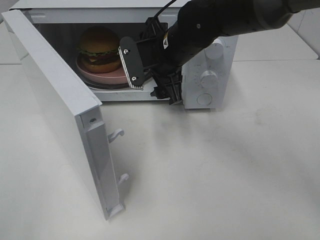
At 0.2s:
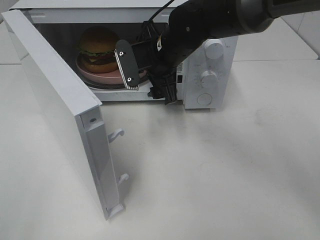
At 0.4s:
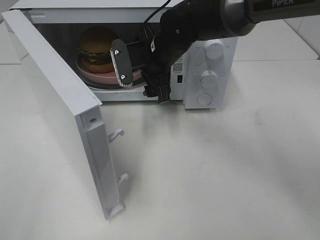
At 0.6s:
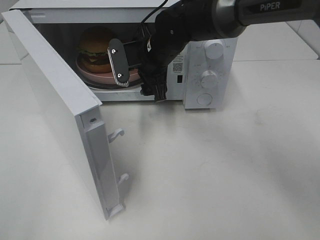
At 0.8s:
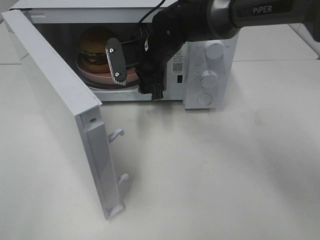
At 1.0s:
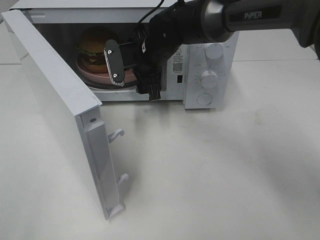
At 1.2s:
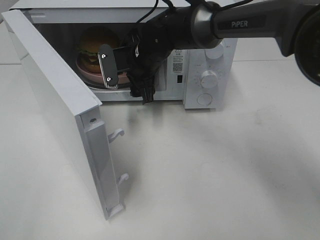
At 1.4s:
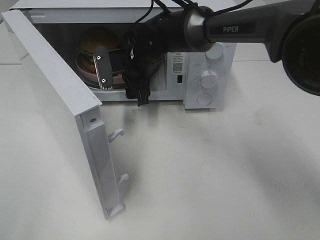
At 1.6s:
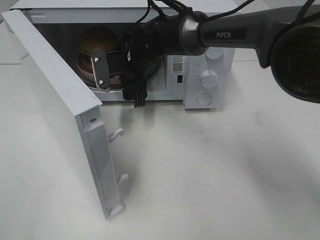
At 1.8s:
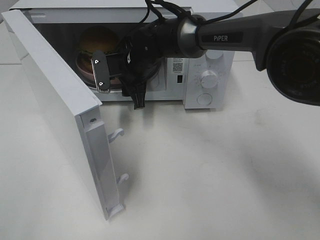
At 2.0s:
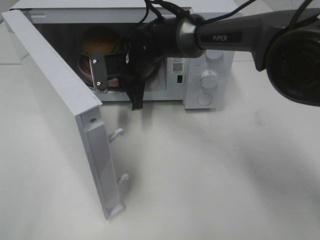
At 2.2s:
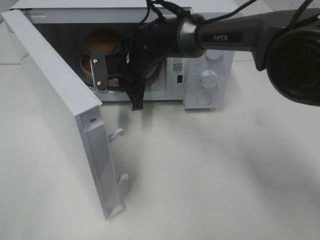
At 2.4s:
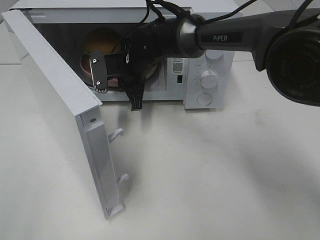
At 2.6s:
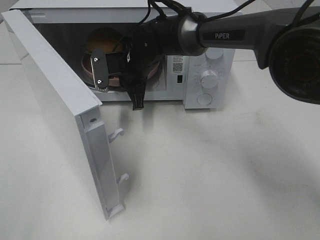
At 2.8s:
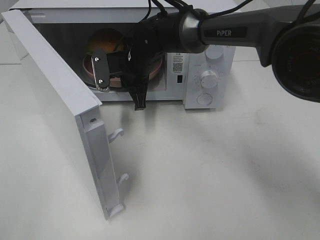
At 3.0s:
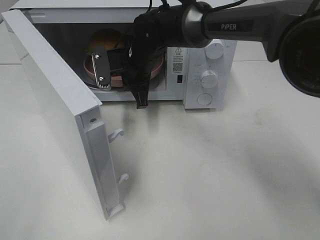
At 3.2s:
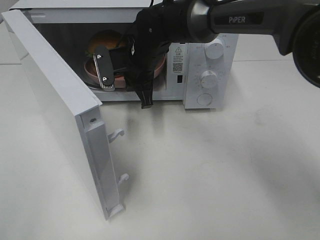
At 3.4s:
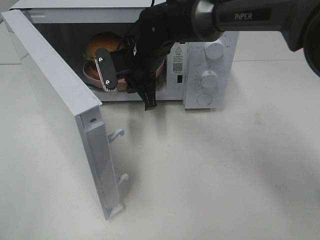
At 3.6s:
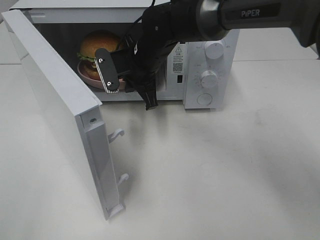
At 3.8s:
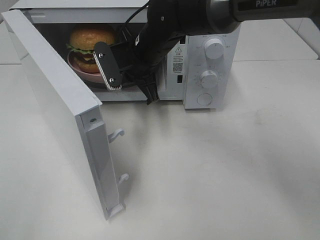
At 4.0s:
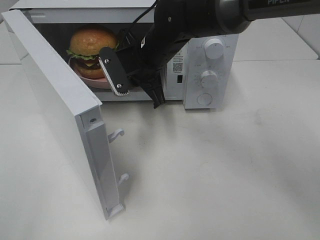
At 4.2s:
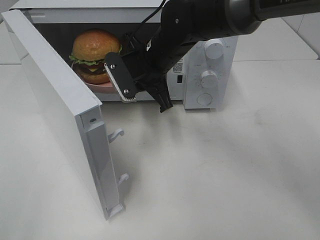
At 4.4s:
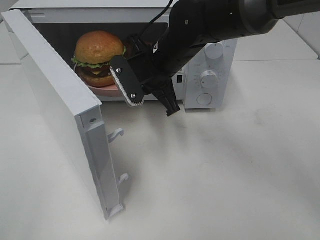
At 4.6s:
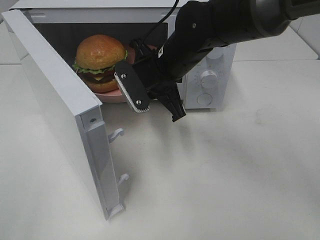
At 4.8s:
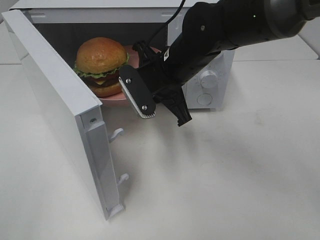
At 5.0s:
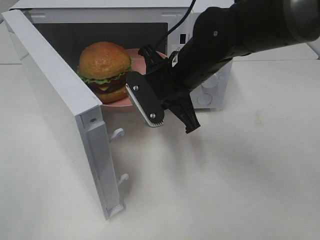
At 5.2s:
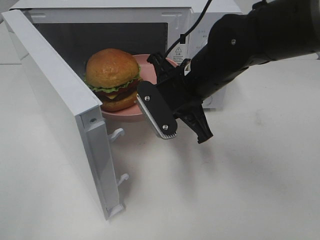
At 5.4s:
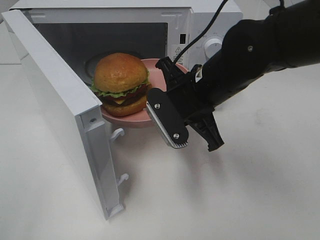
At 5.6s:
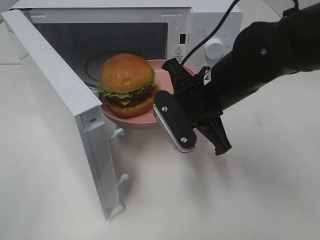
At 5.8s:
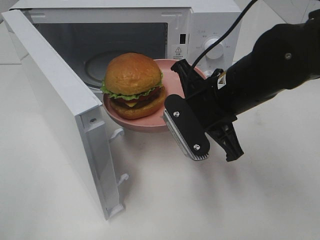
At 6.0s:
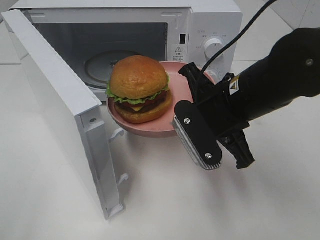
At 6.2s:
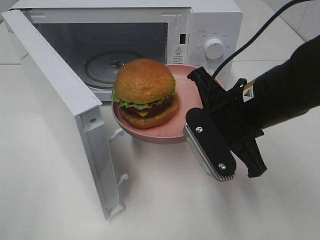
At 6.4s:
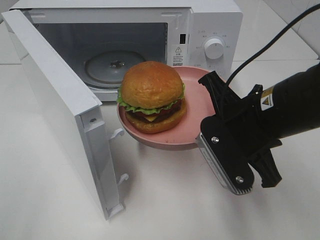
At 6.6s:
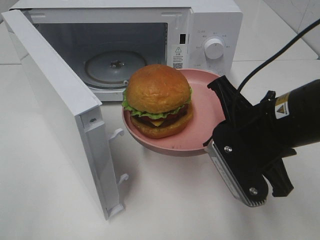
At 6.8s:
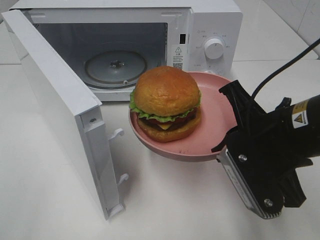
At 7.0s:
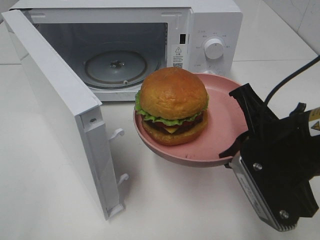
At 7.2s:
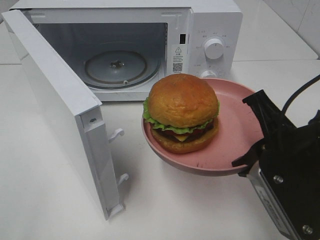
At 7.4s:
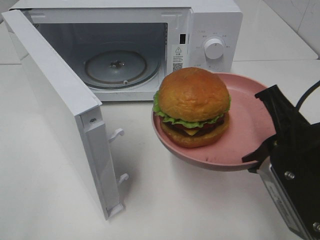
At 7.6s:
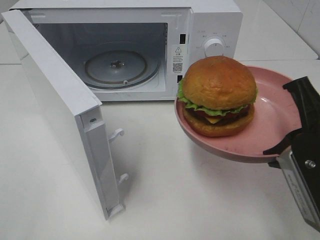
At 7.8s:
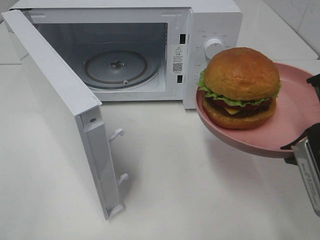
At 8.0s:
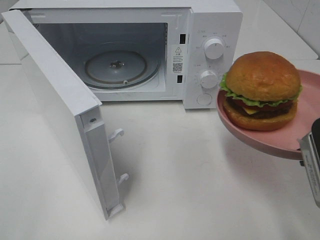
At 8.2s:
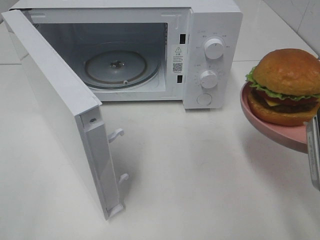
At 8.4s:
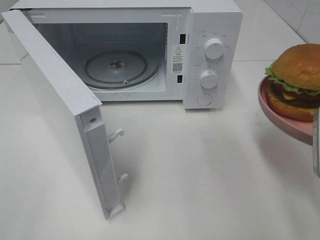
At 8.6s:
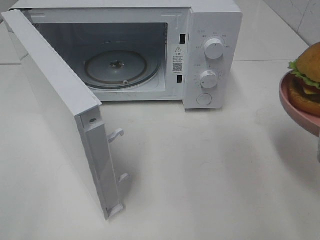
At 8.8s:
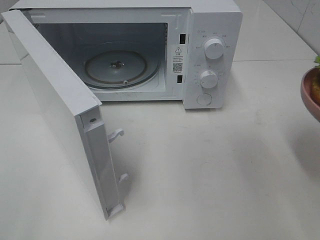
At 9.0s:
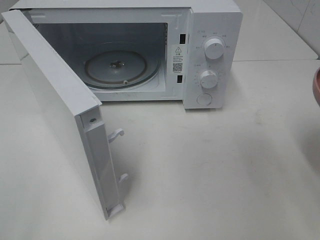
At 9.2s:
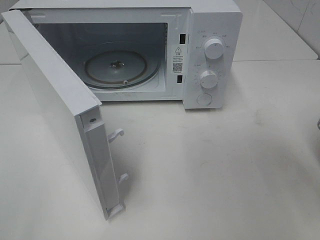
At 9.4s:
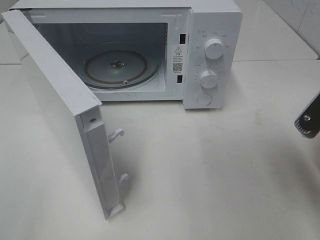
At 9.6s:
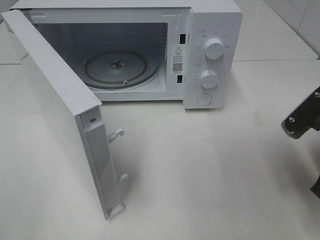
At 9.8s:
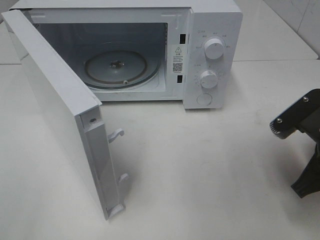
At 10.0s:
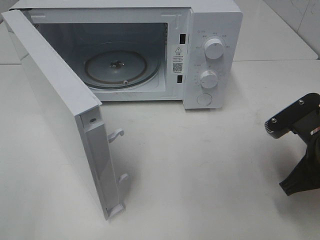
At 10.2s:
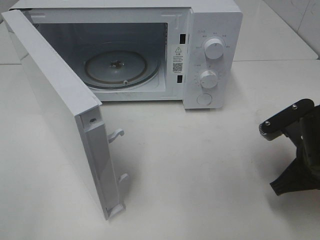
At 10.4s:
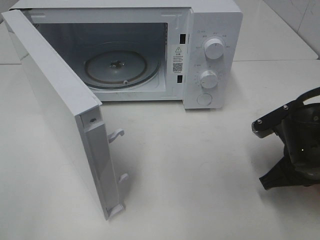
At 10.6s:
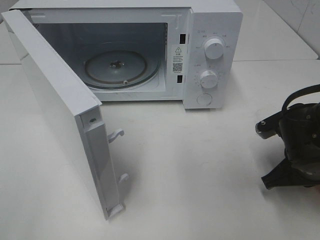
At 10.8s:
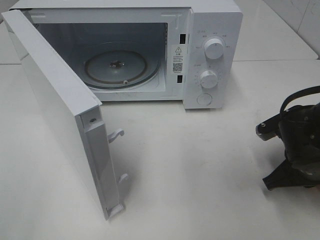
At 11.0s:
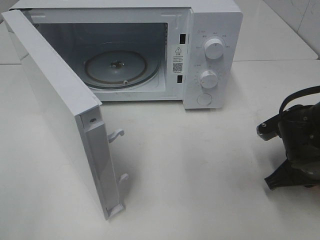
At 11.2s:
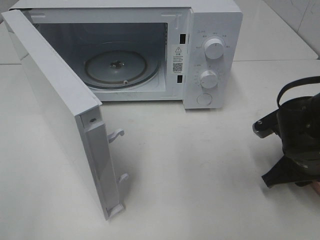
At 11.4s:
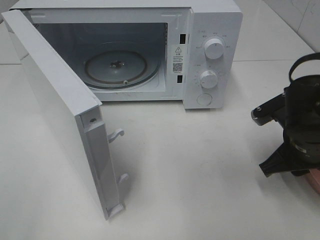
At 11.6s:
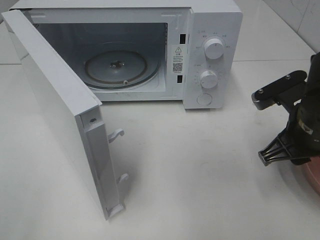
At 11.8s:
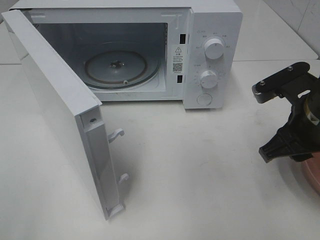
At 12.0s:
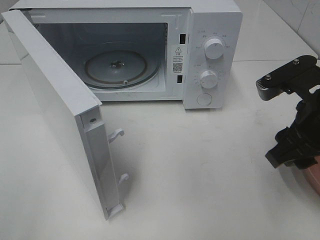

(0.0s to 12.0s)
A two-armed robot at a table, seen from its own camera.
Task of the whole recording: Heat the burger.
Step, 0.0s - 2.2s: Right hand: grab the plate with the hamburger.
Step, 2.4s - 11.6s: Right hand: place the plate on the table.
0.0s - 1.6s: The right gripper heads to the left, forward and downward, covering about 10 cm.
1.6s - 3.0s: The right gripper closes.
3.0s - 4.4s: The right gripper shifts approximately 5 cm backward.
4.4s - 6.0s: The right gripper is displaced backward and to the right by approximately 15 cm.
6.0s - 7.6s: The right gripper moves backward and to the right, roughly 15 cm.
7.6s - 9.0s: The right gripper travels to the right by about 5 cm.
9.0s - 10.4s: The right gripper heads downward and forward, covering roughly 15 cm.
10.4s - 12.0s: The right gripper shifts roughly 10 cm upward, and opens its fingers.

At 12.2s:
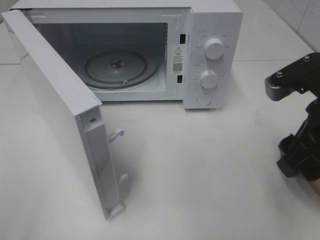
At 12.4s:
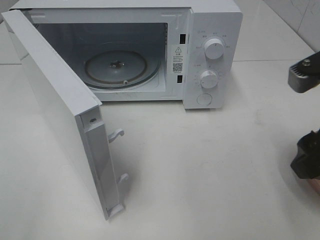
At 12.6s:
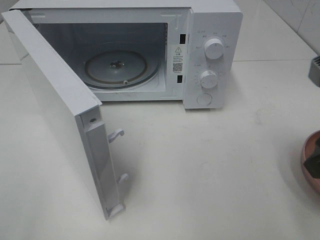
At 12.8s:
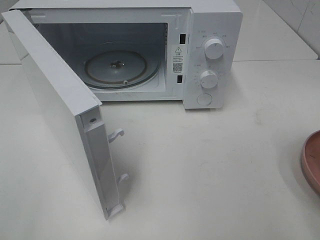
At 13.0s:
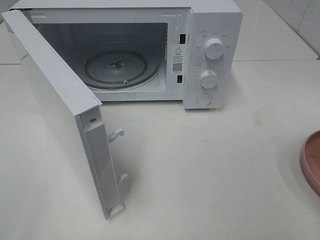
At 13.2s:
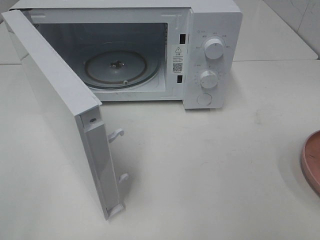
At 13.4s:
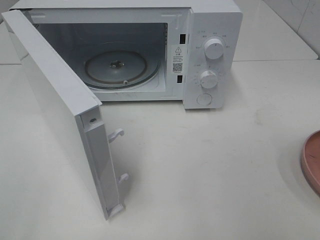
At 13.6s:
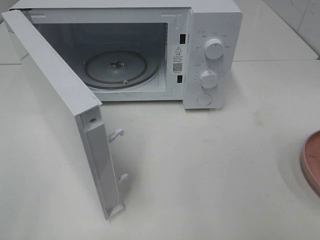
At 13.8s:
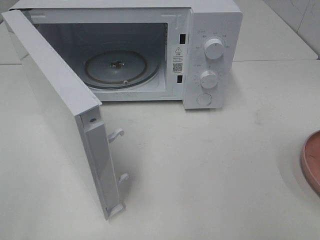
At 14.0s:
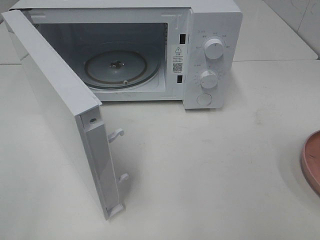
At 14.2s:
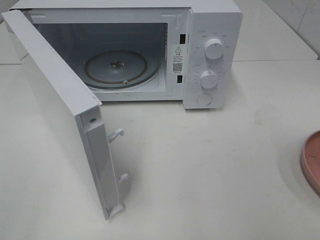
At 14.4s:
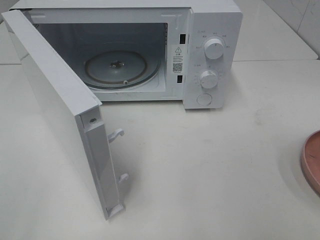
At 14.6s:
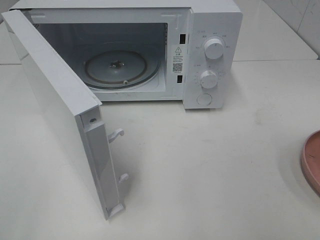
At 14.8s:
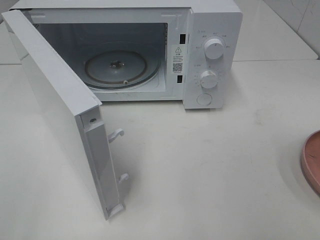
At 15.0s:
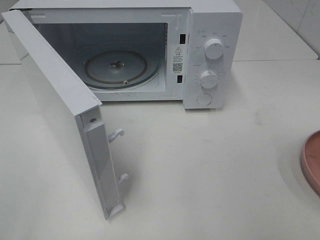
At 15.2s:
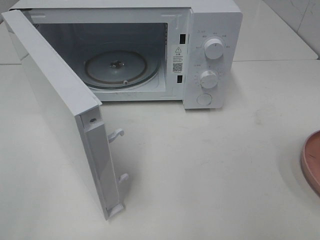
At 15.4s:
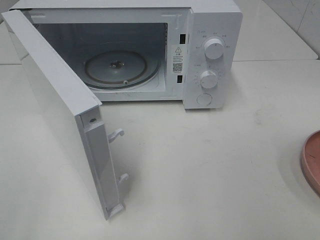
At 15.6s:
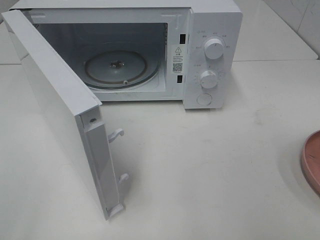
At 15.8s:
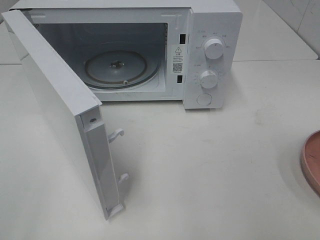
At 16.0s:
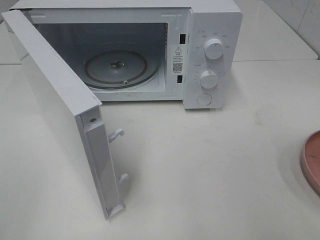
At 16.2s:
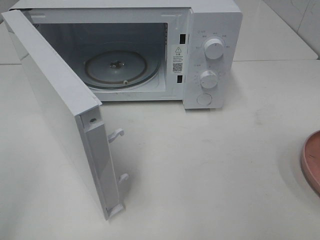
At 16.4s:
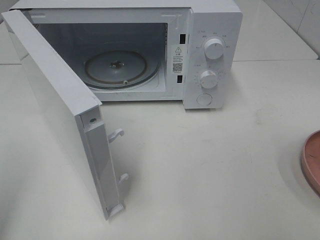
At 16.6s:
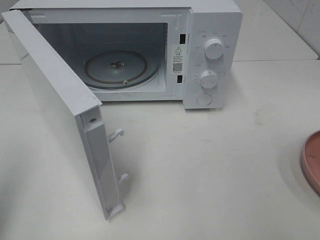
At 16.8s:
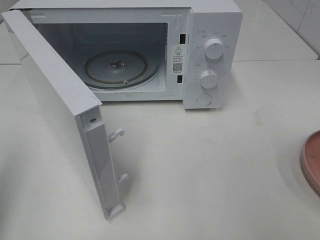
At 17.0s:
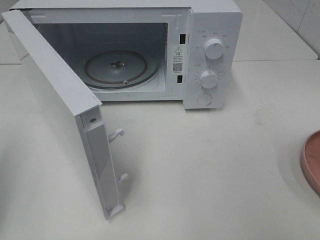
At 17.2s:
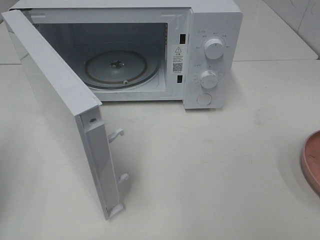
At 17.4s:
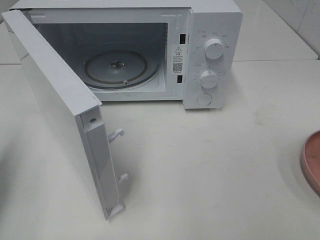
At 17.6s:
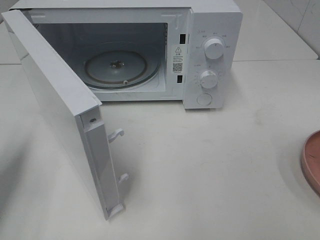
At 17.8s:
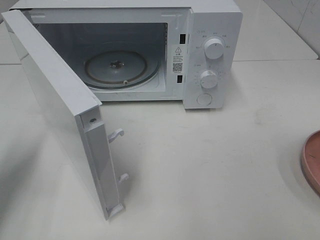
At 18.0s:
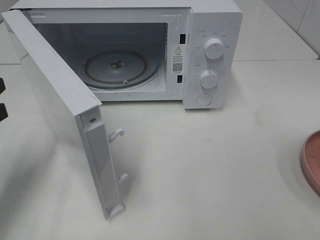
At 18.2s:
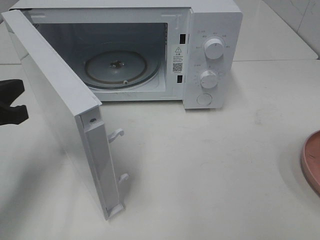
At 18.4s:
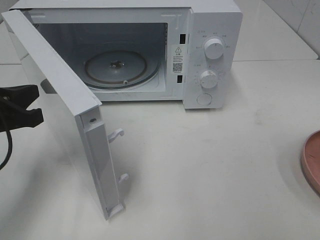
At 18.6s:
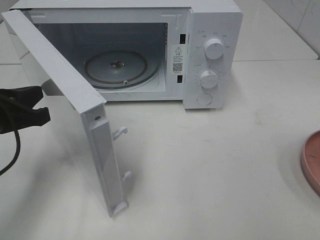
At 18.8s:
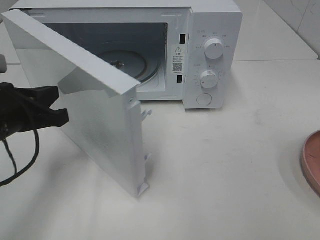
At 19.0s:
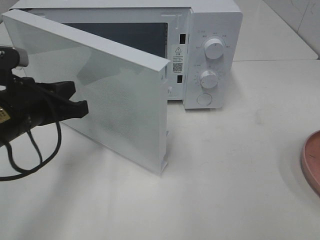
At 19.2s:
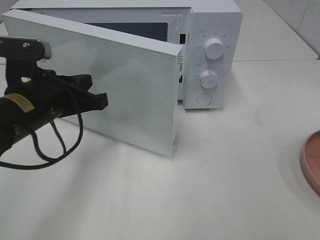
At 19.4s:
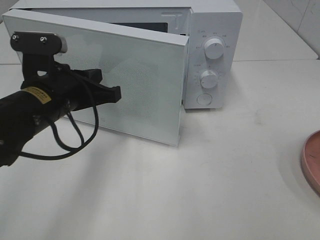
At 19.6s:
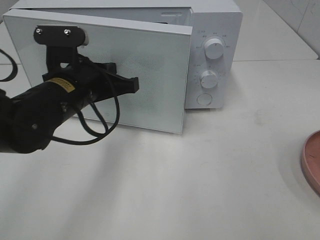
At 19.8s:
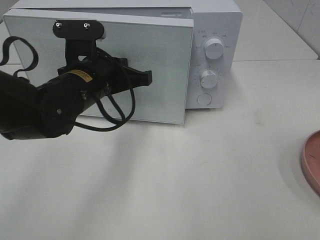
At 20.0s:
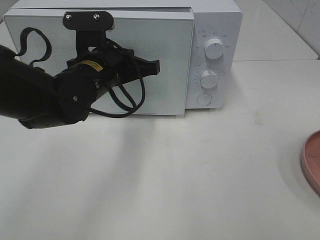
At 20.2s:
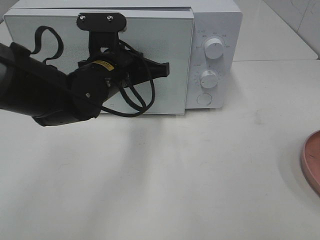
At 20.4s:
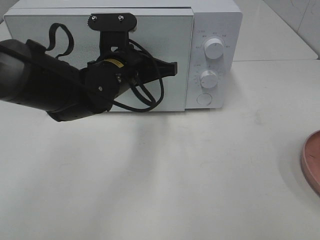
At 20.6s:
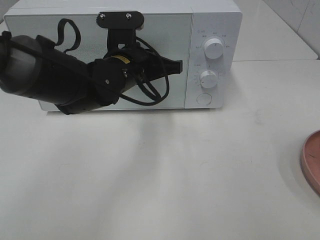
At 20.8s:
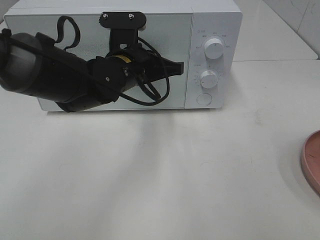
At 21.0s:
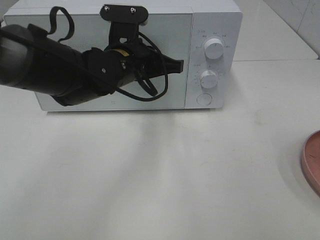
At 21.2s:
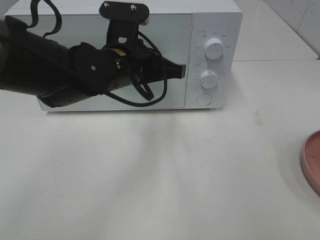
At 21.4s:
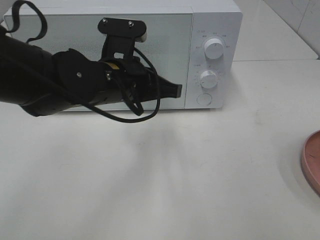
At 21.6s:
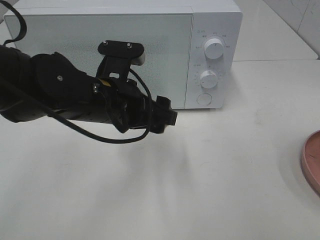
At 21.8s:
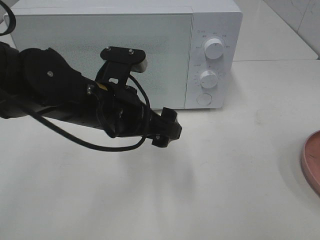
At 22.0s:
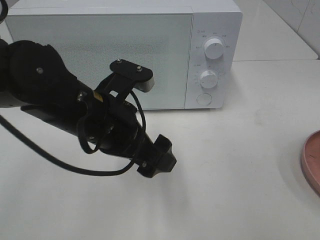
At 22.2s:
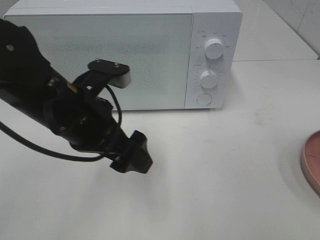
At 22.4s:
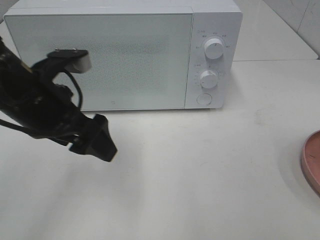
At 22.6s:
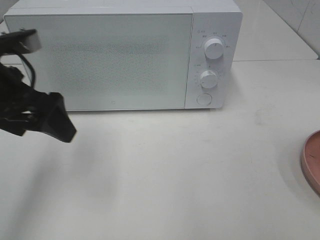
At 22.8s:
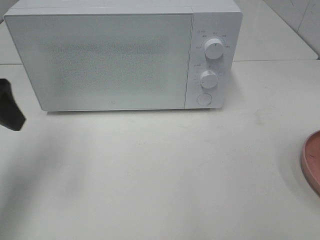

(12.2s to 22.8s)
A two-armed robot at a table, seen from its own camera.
Task of the whole recording: Heat the burger.
Step, 12.2s - 21.6s: Left hand: close the microwave door.
12.2s - 13.8s: The right gripper goes roughly 20 cm backward and to the right.
13.8s - 15.2s: Both grippers stay put.
15.2s - 16.8s: The left gripper goes approximately 10 cm forward, and closes up.
16.8s - 18.2s: The left gripper goes approximately 15 cm downward, forward and to the right.
18.2s - 19.8s: The left gripper shifts some 20 cm to the right and forward.
19.8s - 21.2s: The left gripper changes place by some 5 cm.
21.2s - 22.8s: The left gripper shifts approximately 25 cm to the left, and opens.
